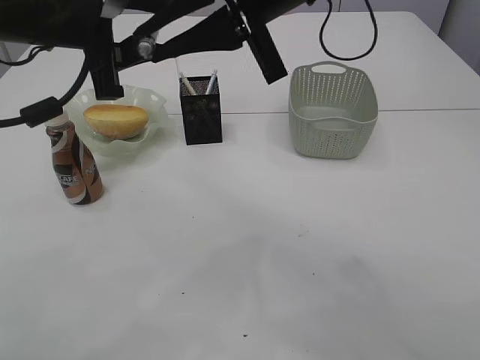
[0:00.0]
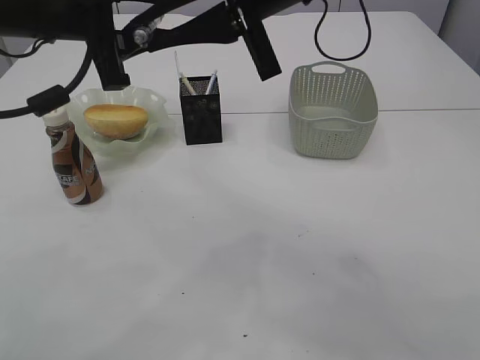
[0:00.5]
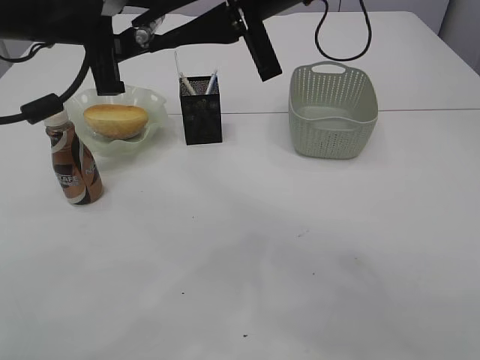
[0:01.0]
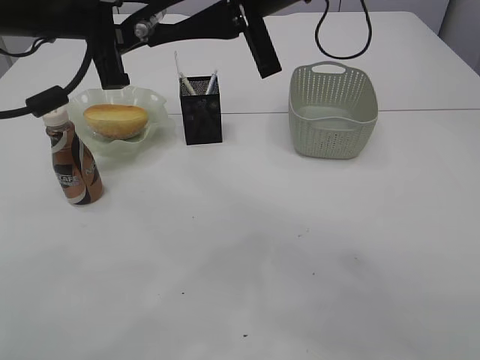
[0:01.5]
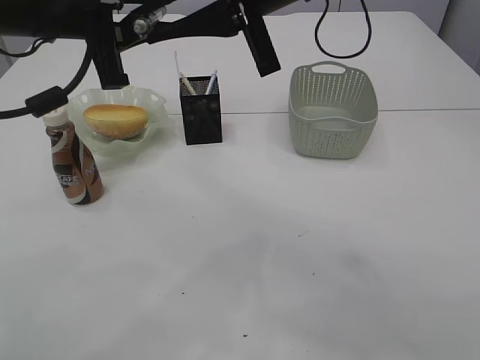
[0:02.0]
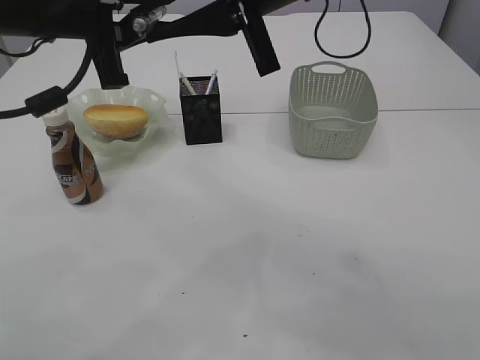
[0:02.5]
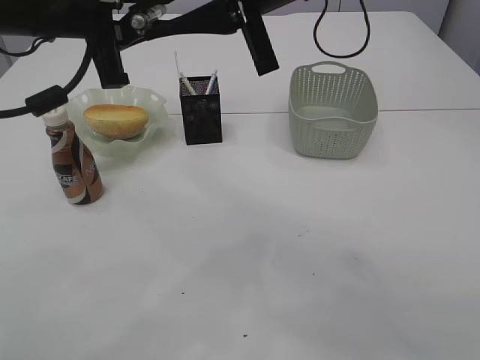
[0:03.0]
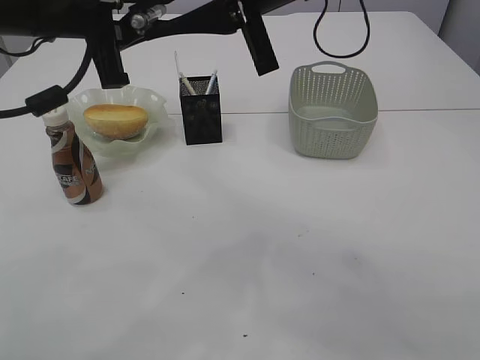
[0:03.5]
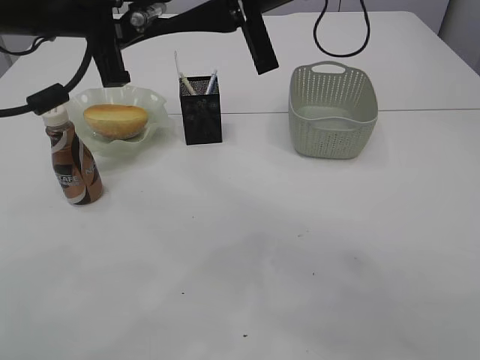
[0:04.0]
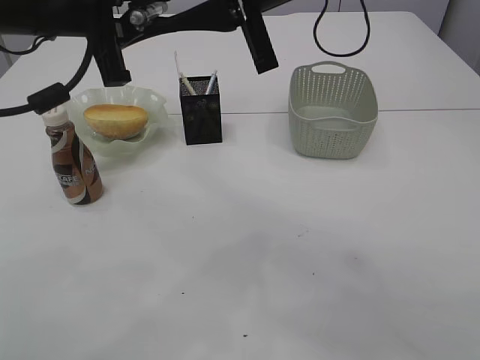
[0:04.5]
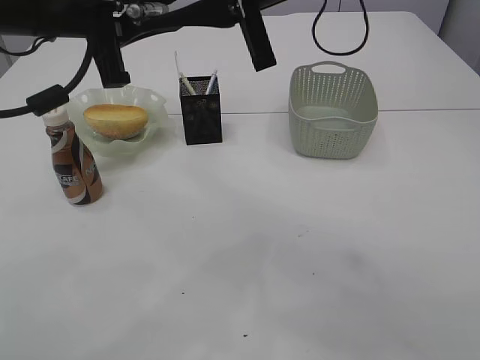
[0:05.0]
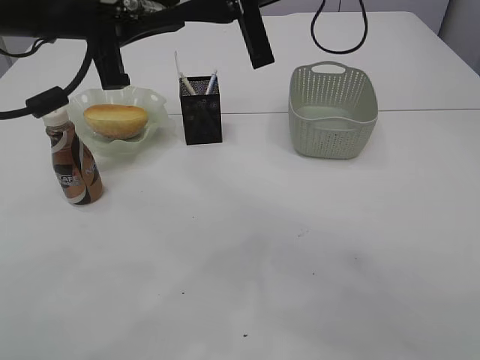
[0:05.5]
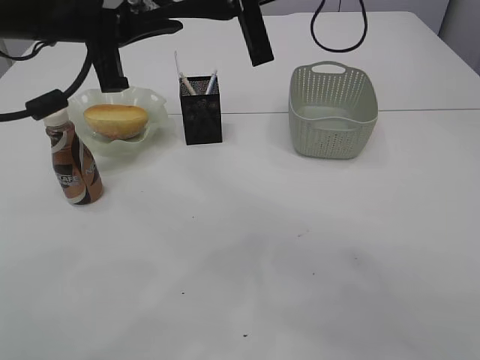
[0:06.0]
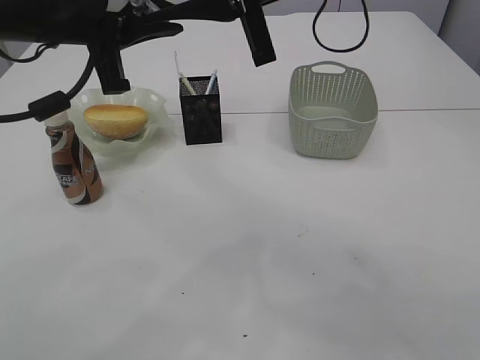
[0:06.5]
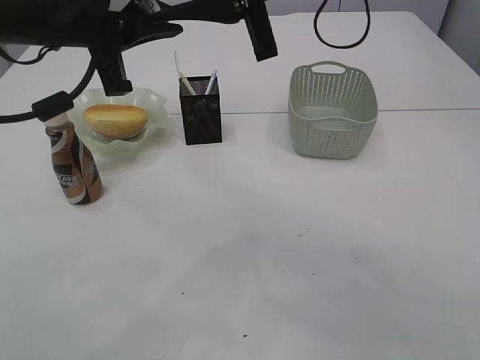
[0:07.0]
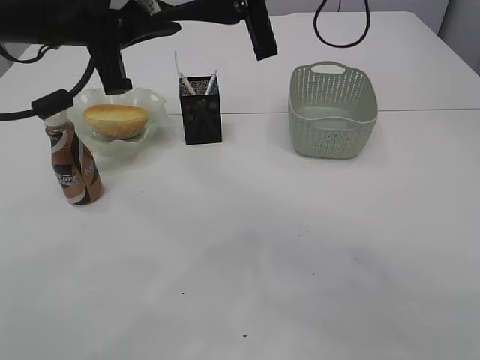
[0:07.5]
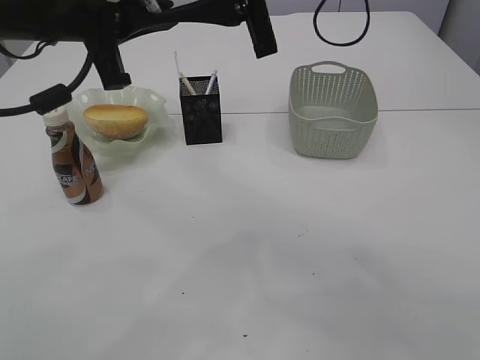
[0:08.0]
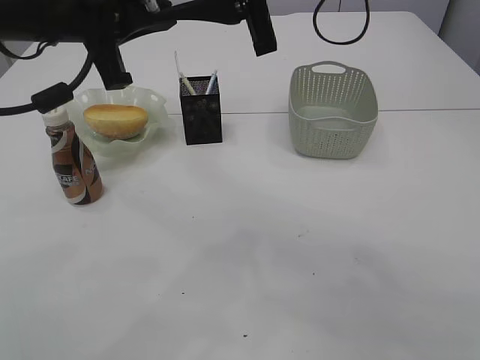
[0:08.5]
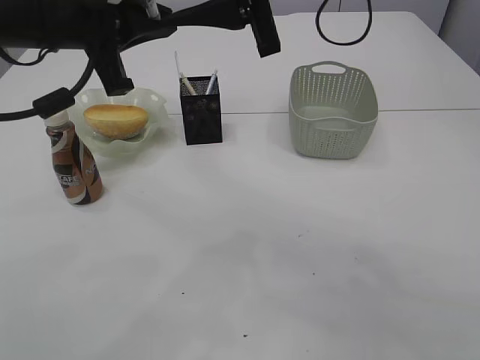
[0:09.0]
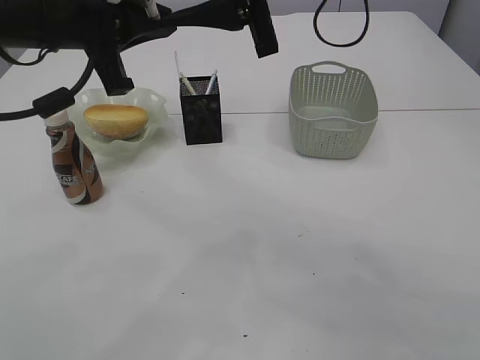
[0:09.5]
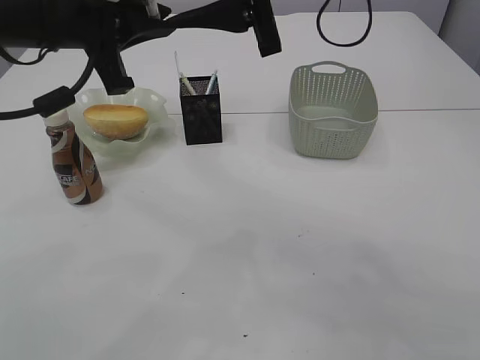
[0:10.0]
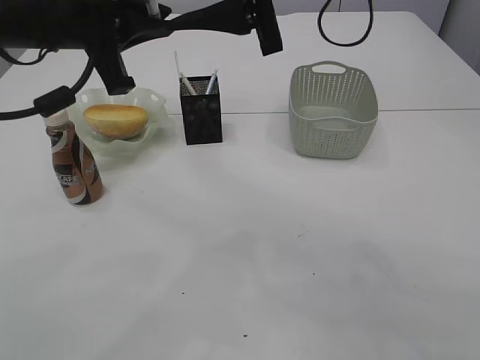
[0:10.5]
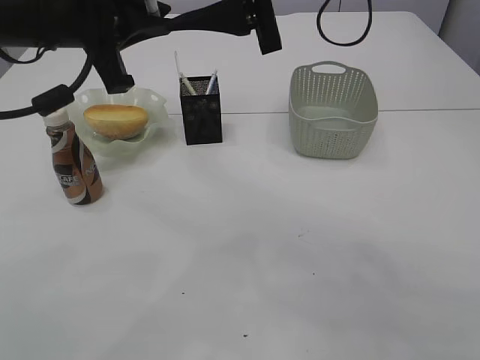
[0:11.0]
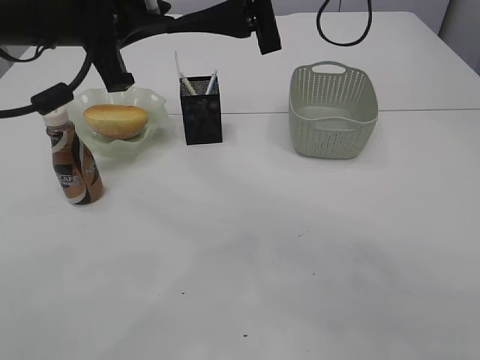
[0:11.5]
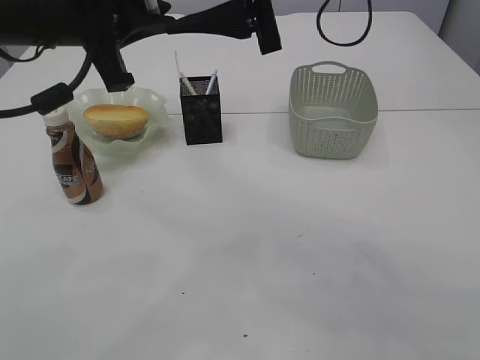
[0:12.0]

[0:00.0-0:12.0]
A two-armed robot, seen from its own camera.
0:00.0 to 0:02.0: There are only small adjustments of the grippers.
0:02.0 to 0:04.0: Both grippers stay about where they are.
0:04.0 to 0:06.0: Both grippers stay about where they are.
0:06.0 to 0:08.0: The right gripper opens.
0:08.0 to 0:10.0: The grippers stay close to where they were, moving slightly.
0:10.0 to 0:12.0: Both grippers stay about where they are.

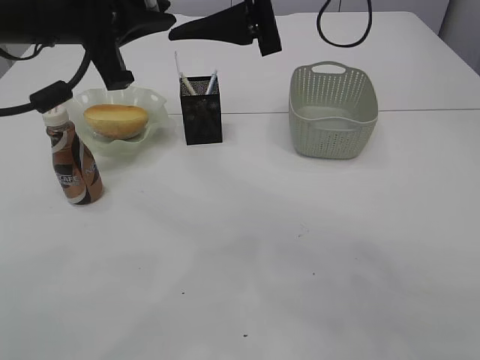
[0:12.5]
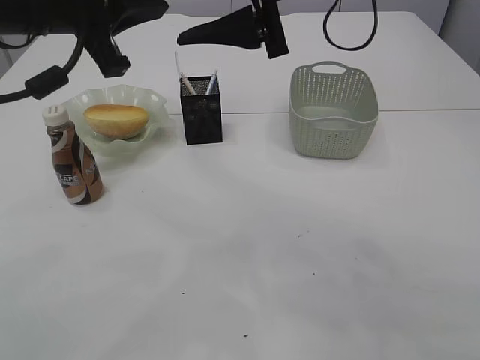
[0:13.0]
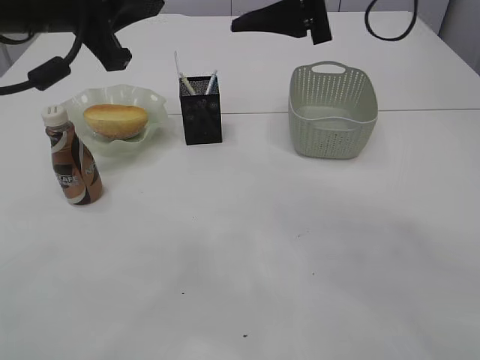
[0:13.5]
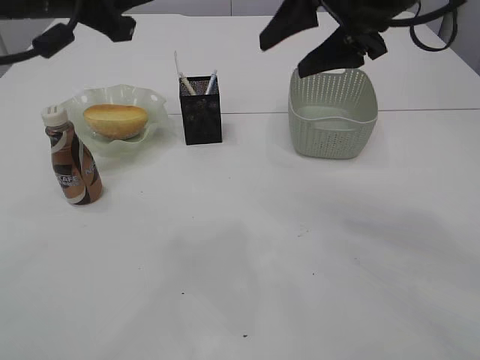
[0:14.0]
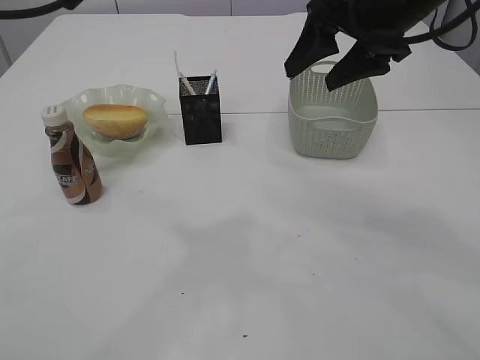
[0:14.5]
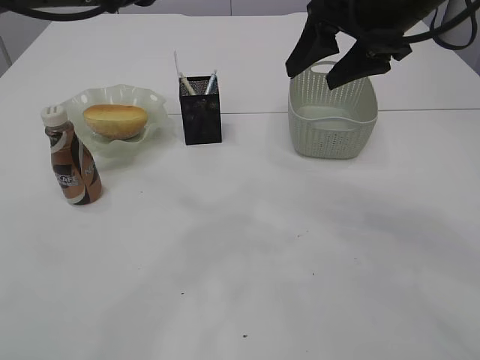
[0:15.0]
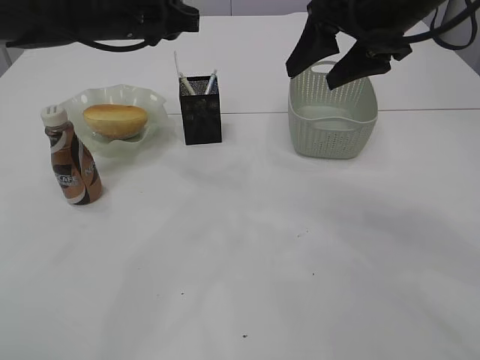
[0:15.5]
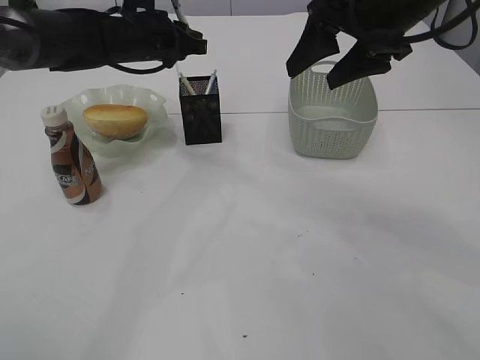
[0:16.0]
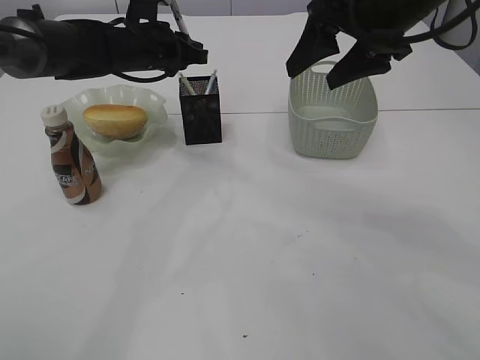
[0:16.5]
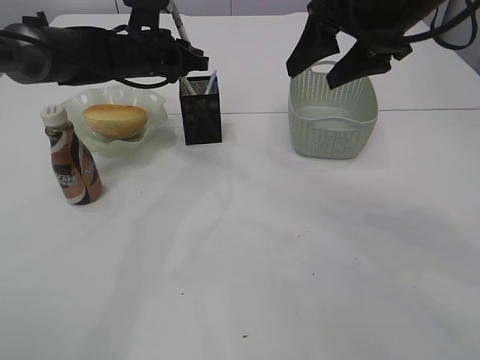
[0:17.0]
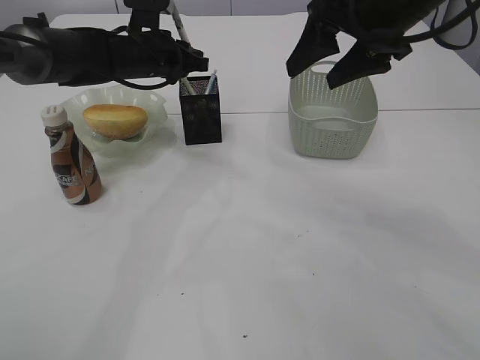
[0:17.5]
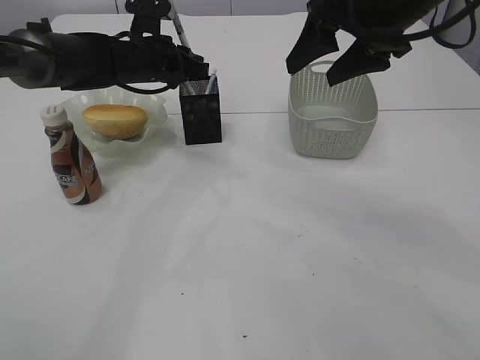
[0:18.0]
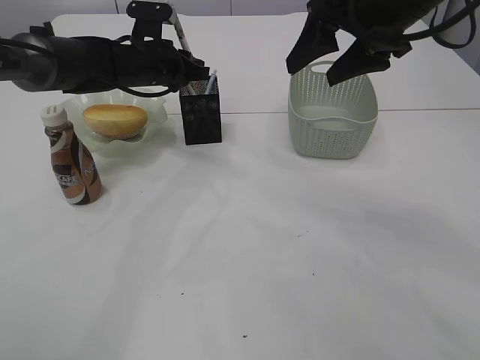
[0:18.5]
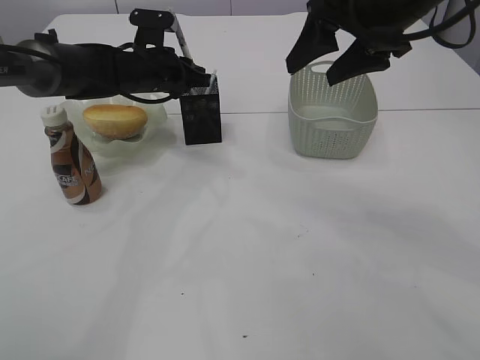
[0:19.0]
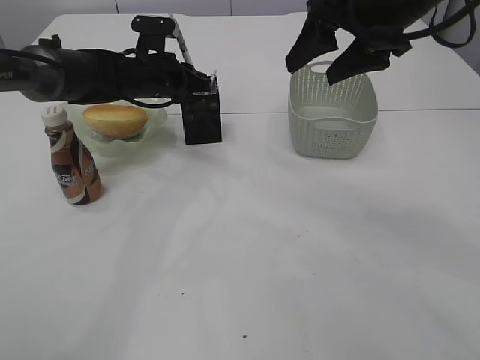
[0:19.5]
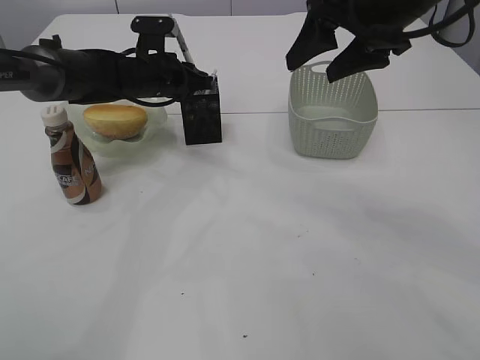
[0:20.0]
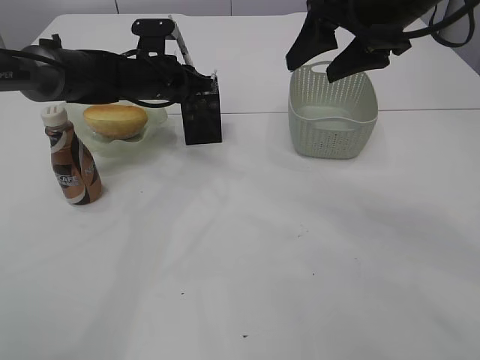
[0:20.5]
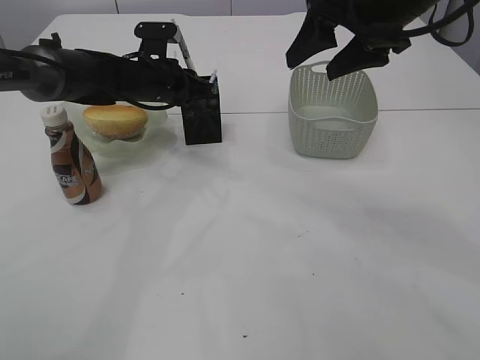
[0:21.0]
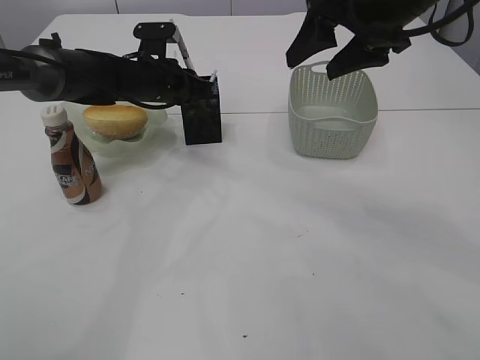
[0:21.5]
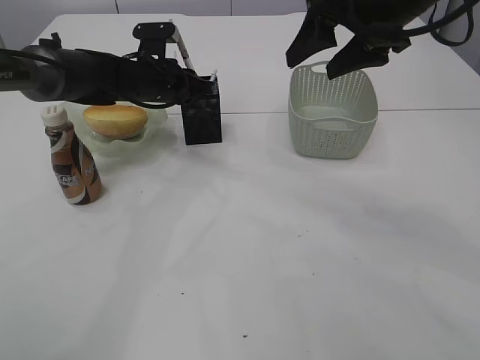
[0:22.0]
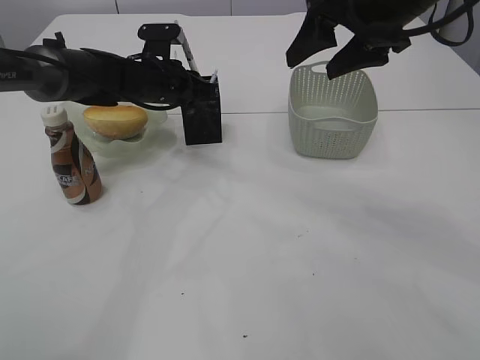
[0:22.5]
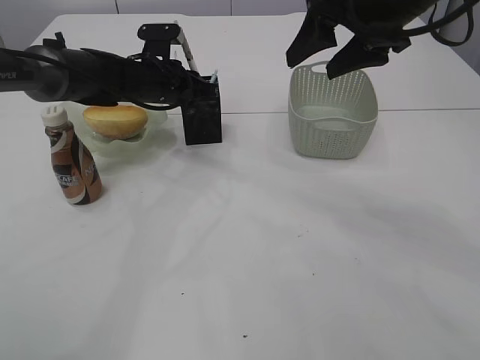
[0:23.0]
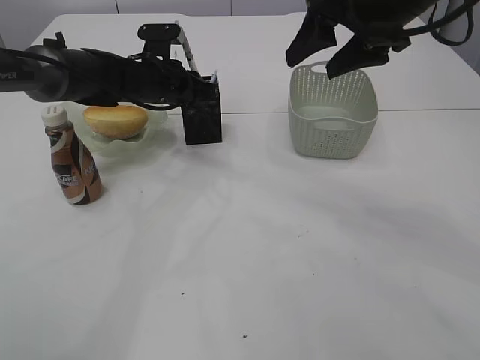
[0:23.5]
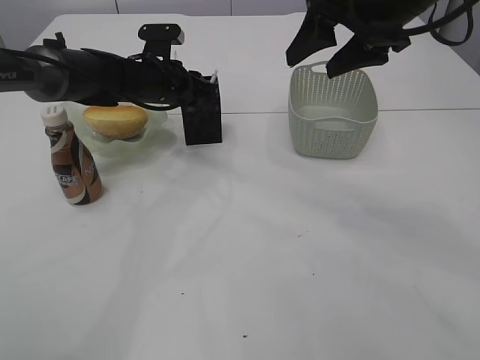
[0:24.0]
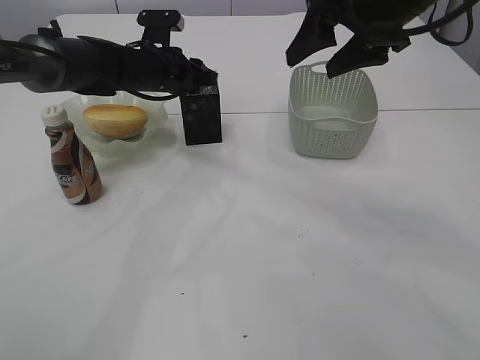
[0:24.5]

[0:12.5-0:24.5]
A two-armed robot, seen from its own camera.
0:12.5 to 0:14.5: The right gripper shifts about 10 cm to the right.
0:14.5 to 0:16.5: The left gripper moves forward and downward, about 20 cm.
0:16.5 to 0:20.5: There are only small adjustments of the grippers.
0:20.5 to 0:22.5: Neither gripper changes place.
0:22.5 to 0:24.5: The grippers make only small movements.

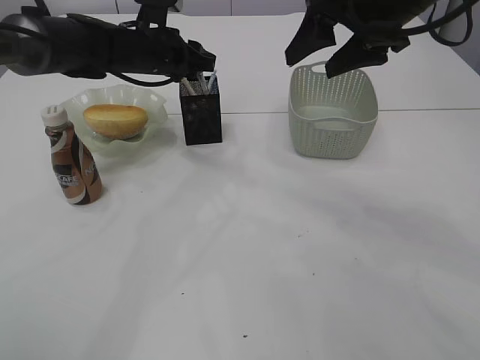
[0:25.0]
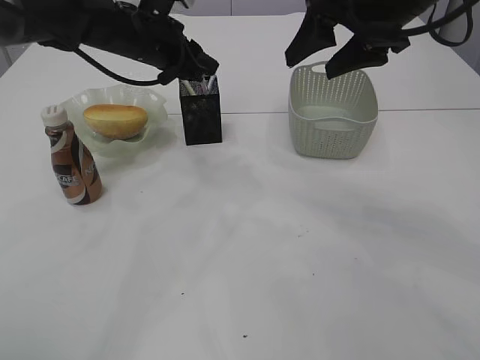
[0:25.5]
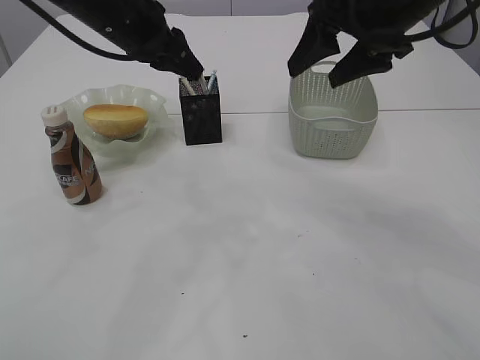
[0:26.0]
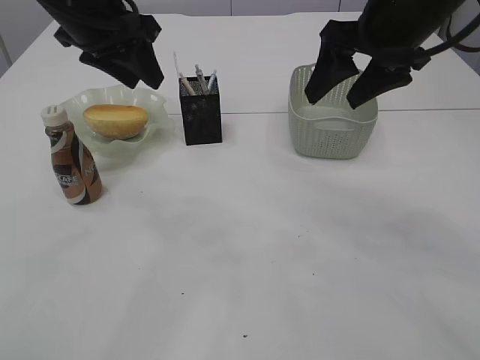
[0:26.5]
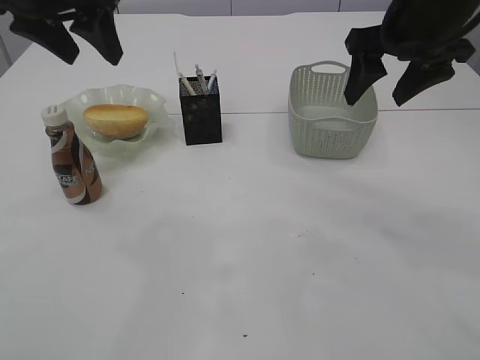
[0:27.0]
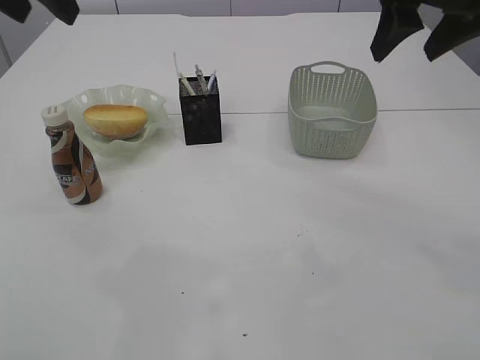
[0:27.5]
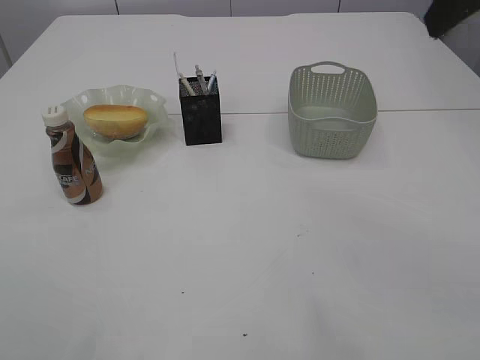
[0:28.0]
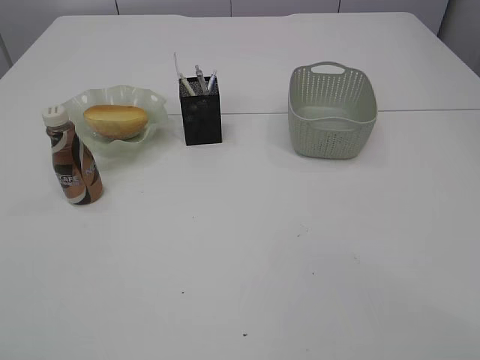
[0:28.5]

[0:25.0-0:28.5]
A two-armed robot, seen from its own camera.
0:25.0 to 0:27.0: The left gripper heads upward and backward, covering some 20 cm, and opens up.
0:27.0 to 0:28.5: The two grippers go approximately 25 cm backward.
